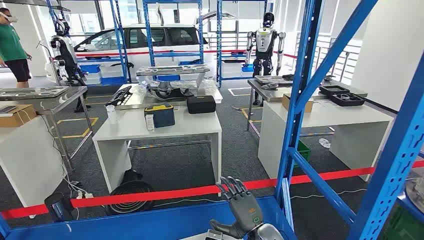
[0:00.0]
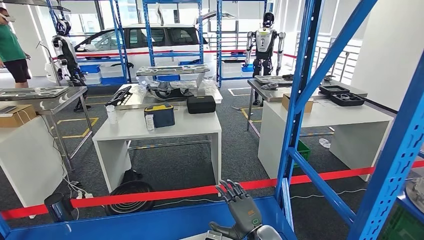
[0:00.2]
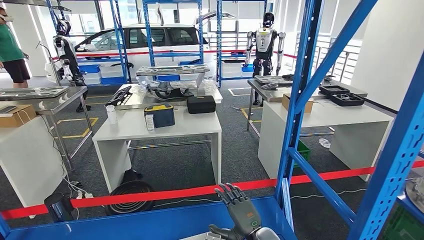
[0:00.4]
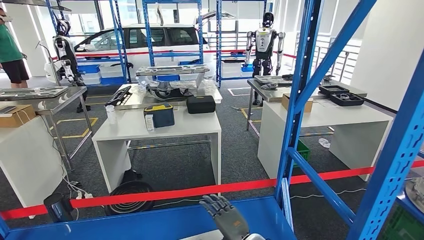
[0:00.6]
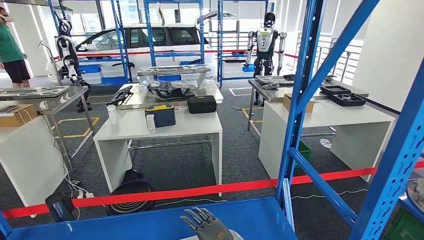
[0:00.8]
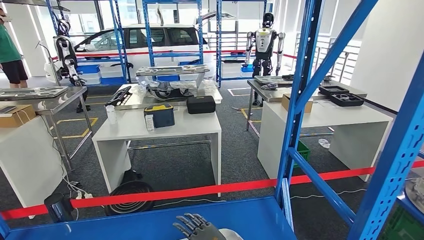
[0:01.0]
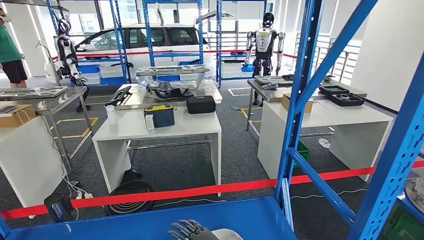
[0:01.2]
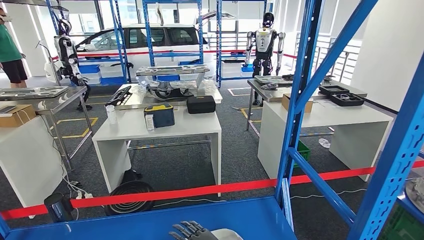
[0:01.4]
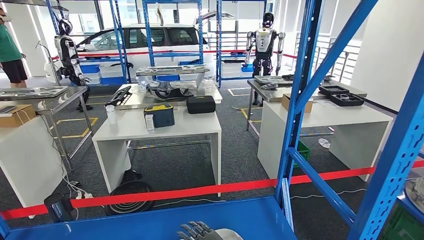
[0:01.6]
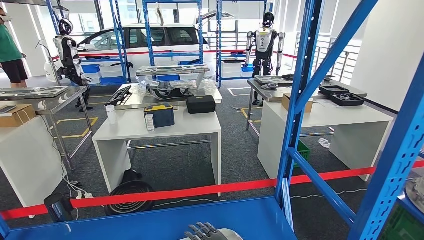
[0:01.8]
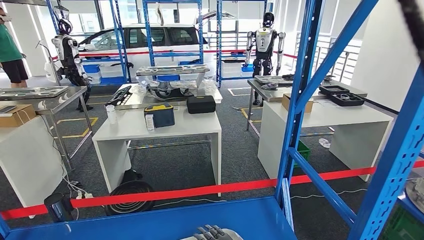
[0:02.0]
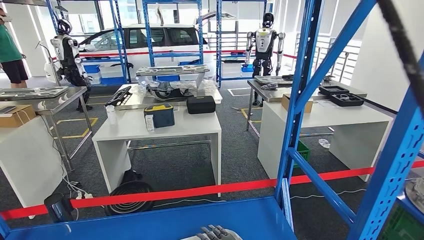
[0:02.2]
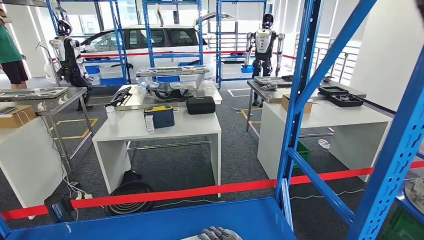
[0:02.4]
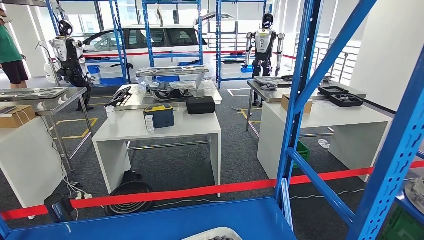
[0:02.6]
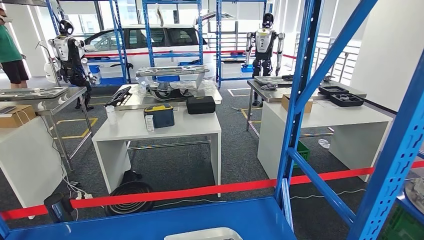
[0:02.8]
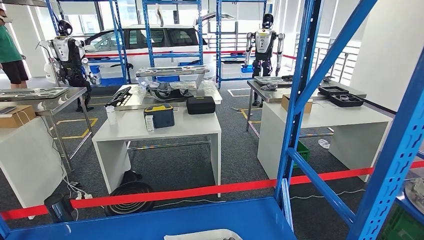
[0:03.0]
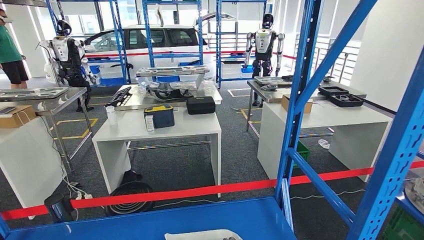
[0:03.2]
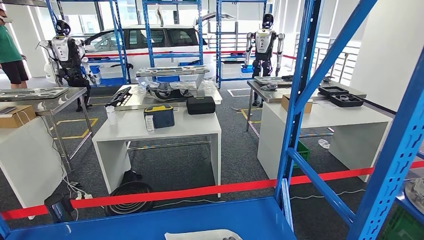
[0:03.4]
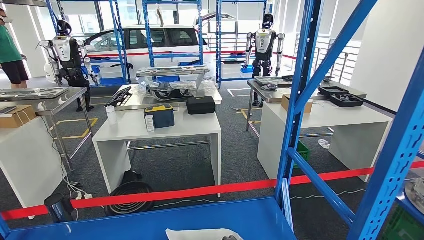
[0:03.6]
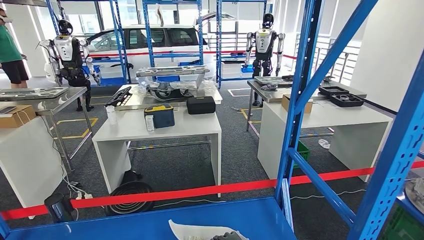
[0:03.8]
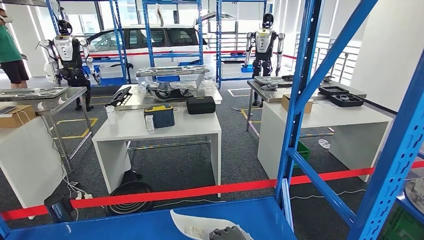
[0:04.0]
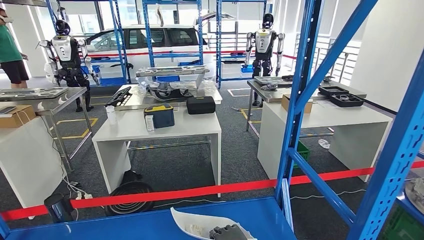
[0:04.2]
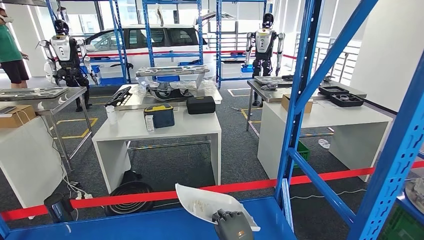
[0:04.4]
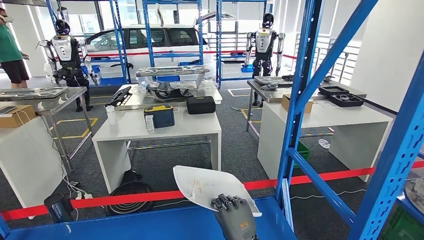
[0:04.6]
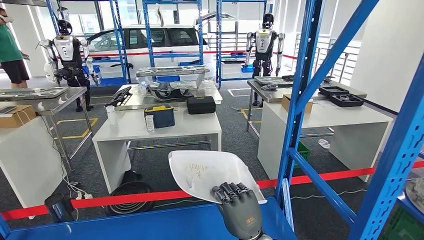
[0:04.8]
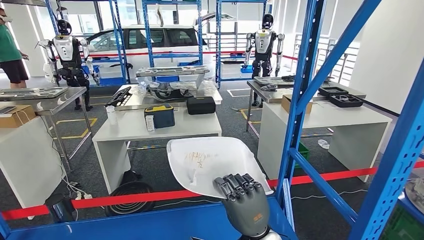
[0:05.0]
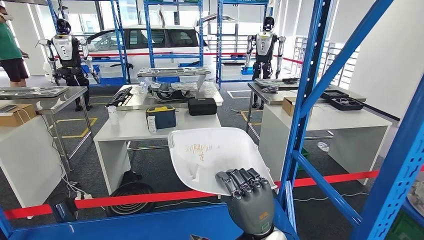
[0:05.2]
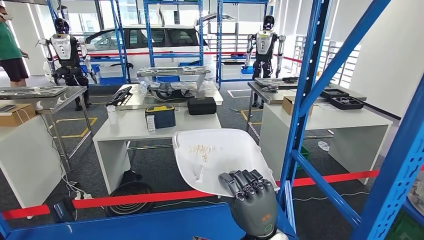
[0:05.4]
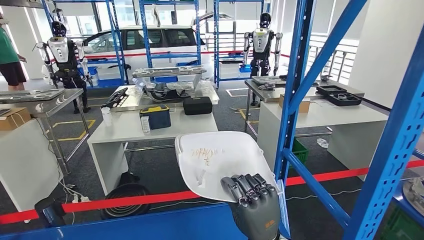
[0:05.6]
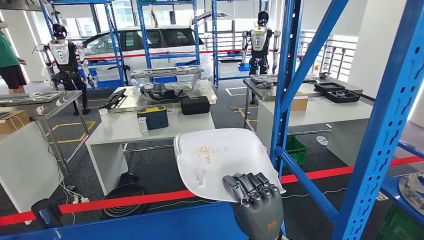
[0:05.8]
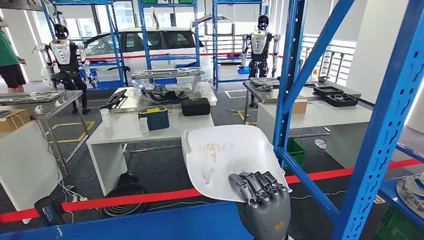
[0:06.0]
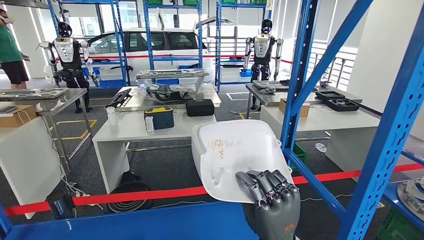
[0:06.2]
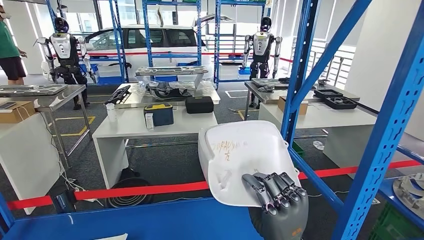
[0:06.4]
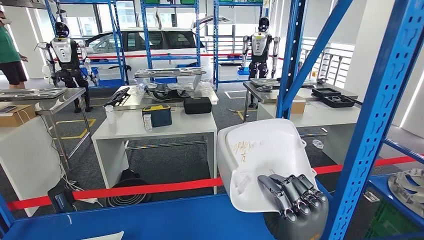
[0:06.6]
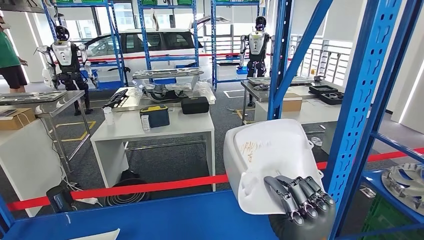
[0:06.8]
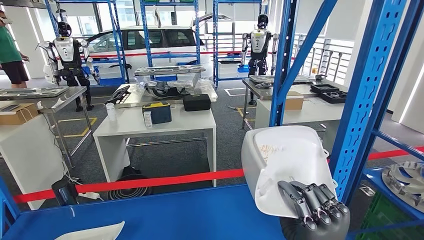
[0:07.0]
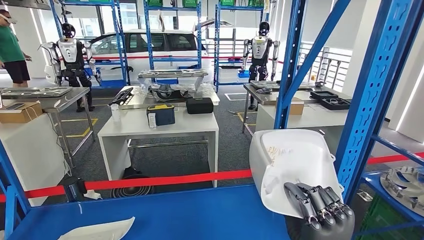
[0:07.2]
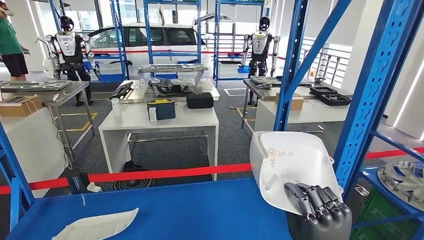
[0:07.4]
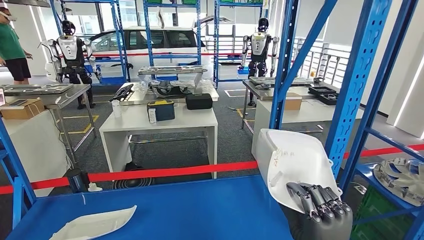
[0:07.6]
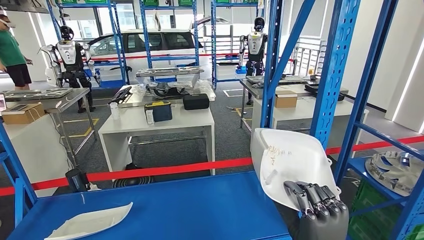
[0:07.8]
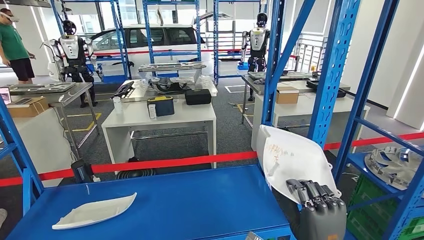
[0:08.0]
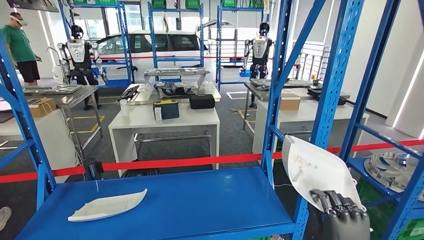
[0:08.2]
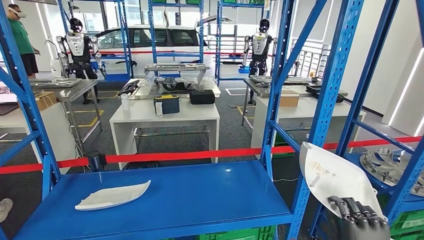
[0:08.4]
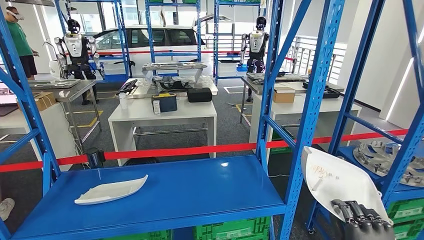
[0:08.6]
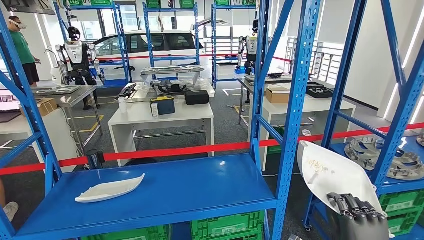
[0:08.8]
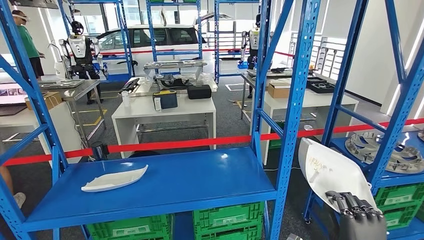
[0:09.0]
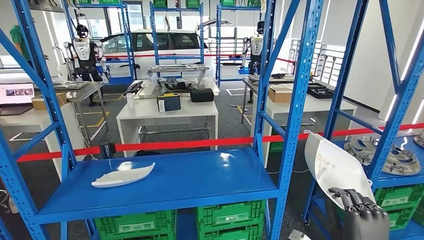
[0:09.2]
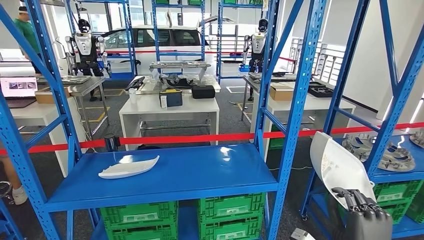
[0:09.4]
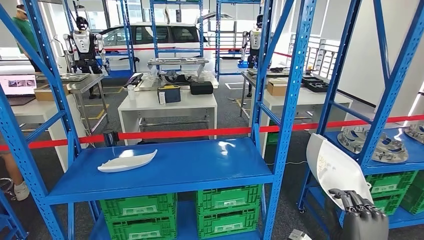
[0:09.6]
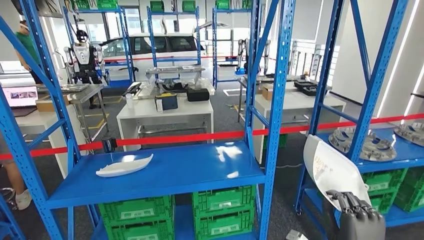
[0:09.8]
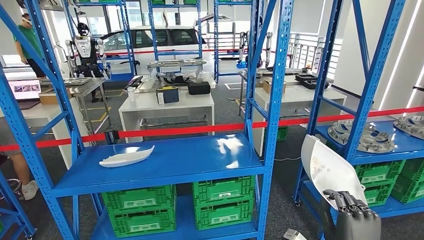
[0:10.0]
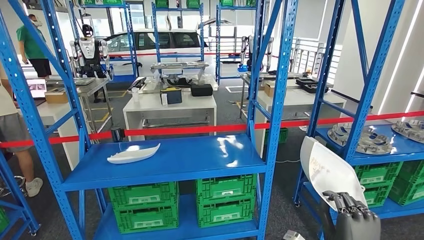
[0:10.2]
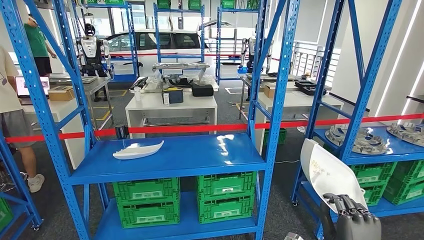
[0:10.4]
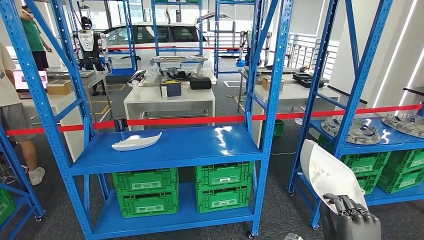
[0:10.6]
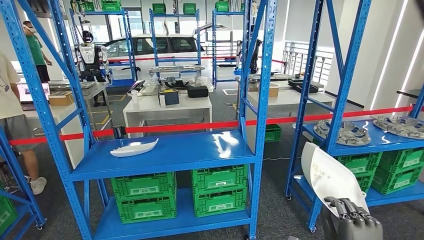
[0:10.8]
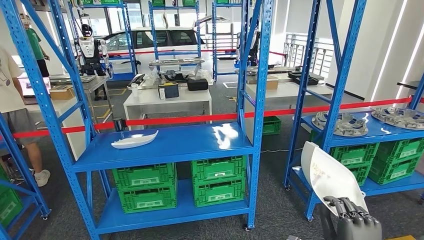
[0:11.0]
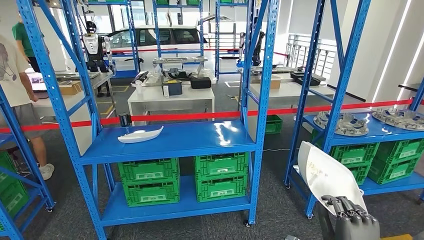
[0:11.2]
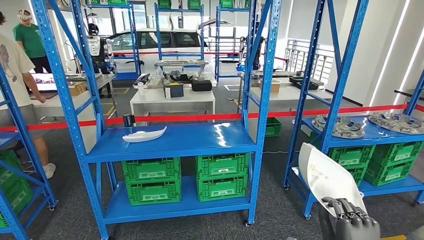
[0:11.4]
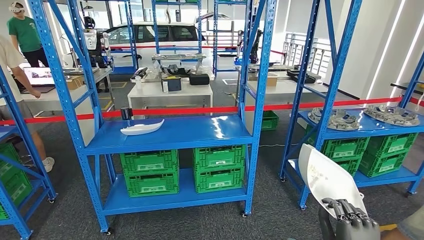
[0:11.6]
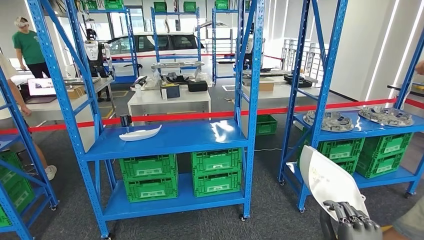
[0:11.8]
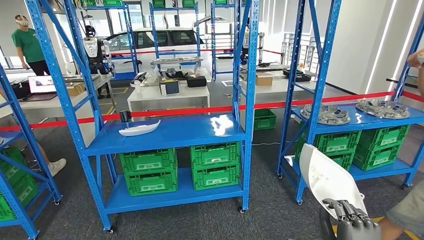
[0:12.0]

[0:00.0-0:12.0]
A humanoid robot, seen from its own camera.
Step, 0:00.0 to 0:05.8: Pick up the small component from the shelf.
0:01.6 to 0:03.0: The right hand shifts approximately 5 cm to the right.

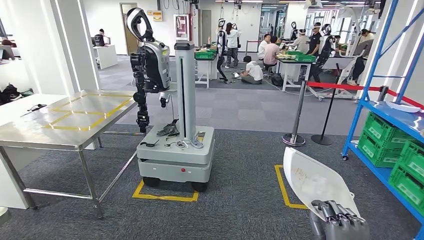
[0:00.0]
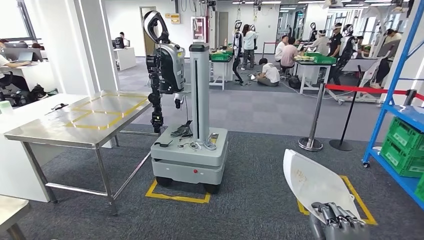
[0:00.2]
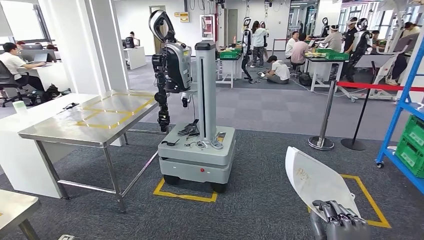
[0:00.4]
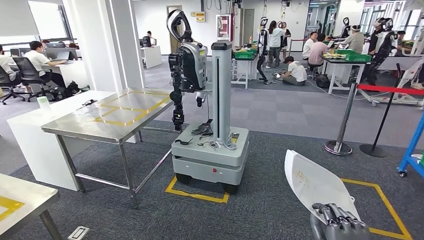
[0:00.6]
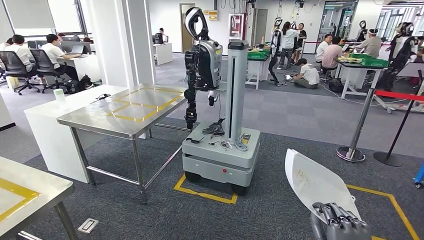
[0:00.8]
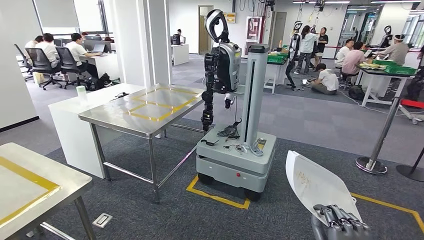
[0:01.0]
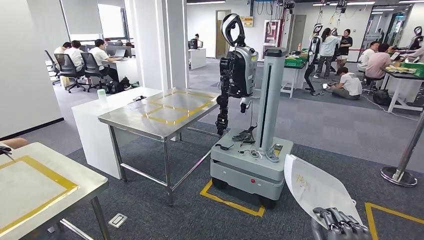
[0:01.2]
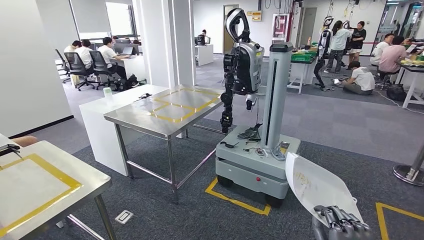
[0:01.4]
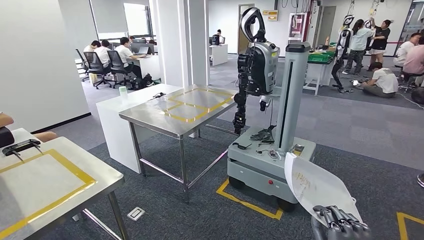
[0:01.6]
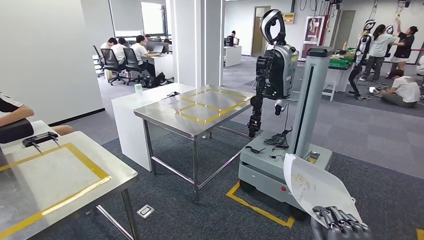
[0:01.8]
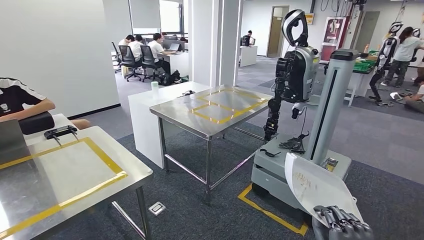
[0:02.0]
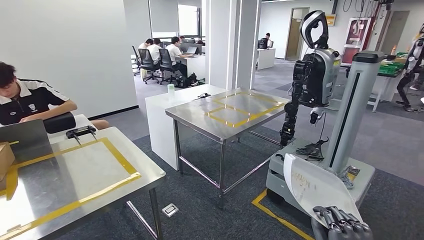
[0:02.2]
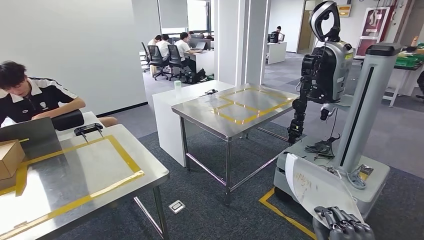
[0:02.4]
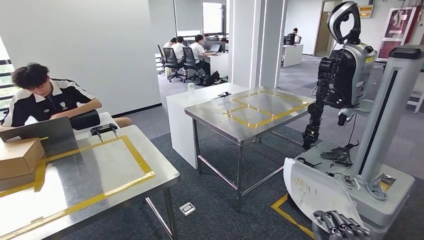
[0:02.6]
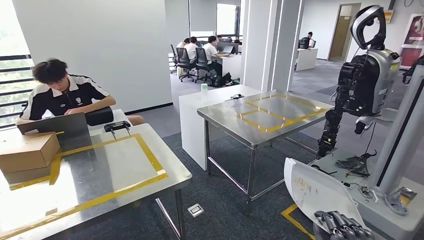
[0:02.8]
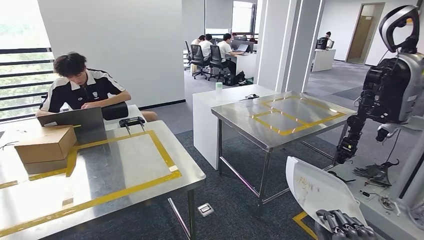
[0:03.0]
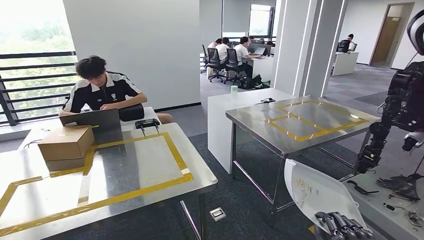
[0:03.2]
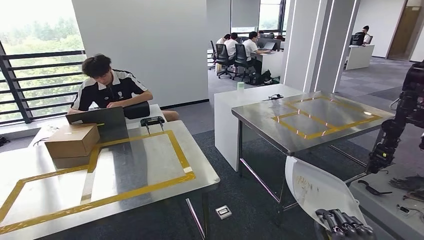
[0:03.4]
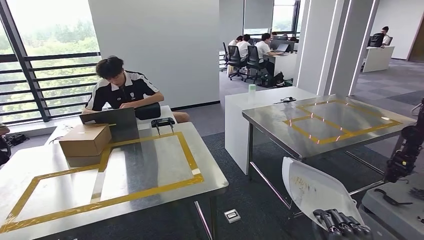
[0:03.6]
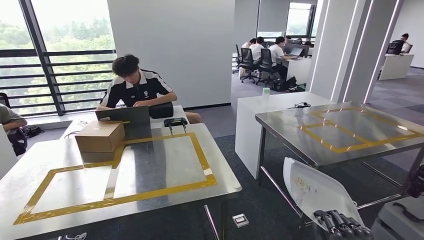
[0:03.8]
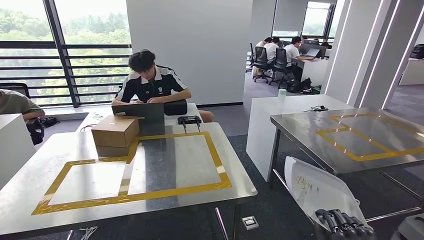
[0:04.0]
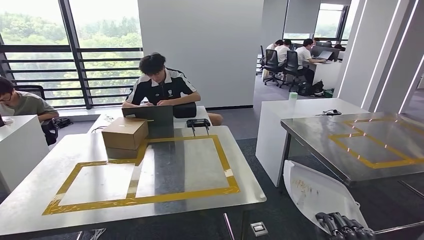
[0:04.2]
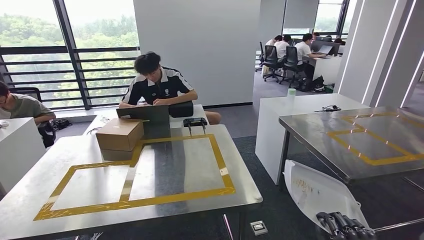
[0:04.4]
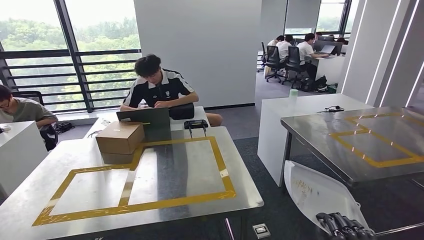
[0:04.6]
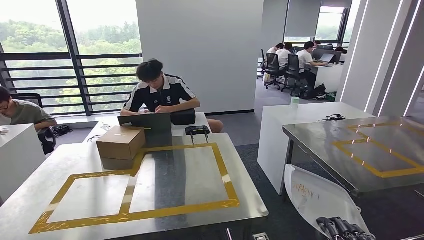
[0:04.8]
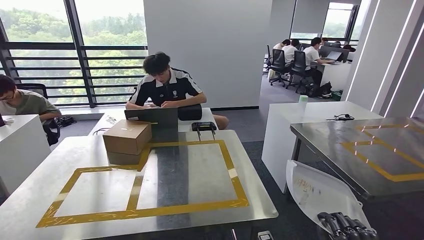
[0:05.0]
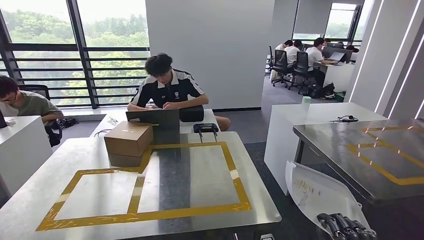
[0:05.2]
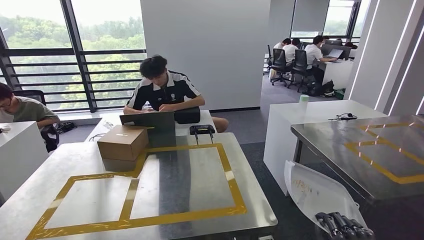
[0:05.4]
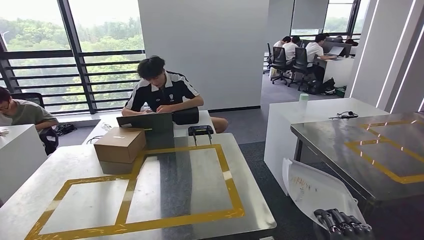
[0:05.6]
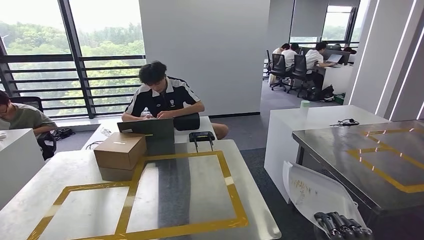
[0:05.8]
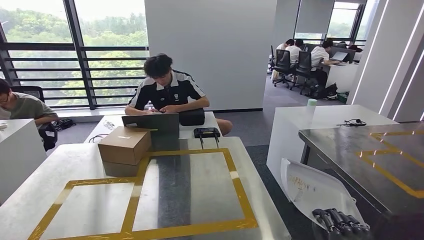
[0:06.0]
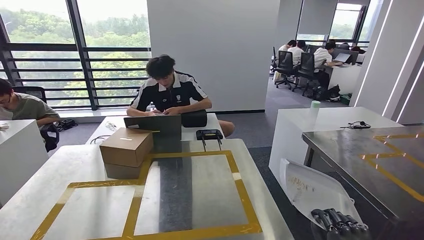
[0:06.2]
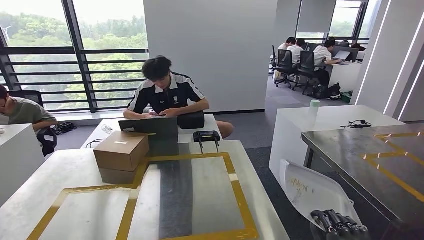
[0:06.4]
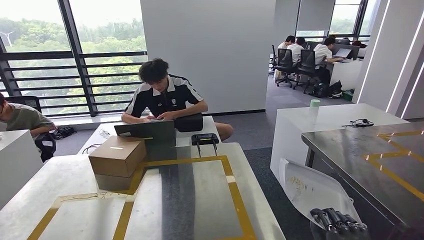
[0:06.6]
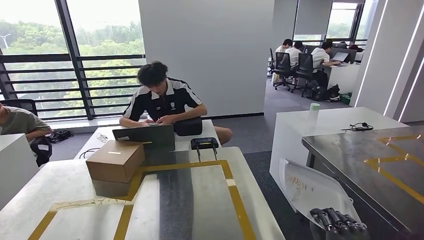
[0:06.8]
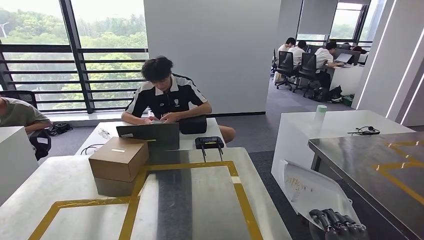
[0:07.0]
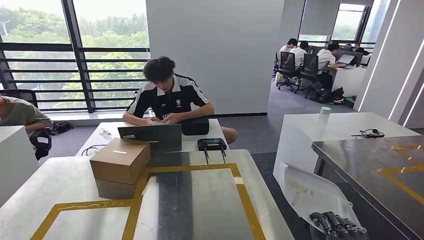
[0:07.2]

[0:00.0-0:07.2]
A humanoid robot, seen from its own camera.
Step, 0:04.2 to 0:06.8: Move the small component to the workbench.
